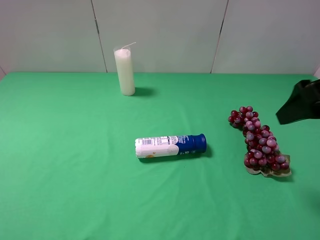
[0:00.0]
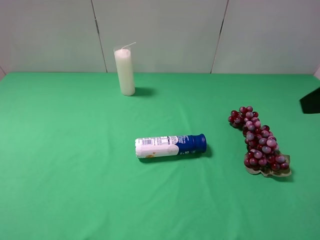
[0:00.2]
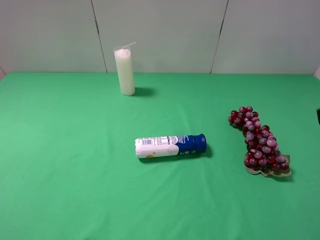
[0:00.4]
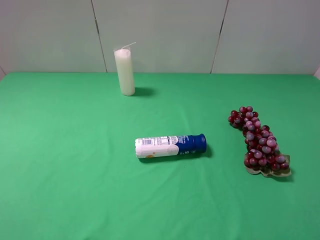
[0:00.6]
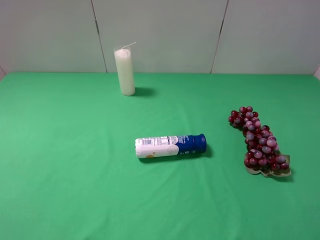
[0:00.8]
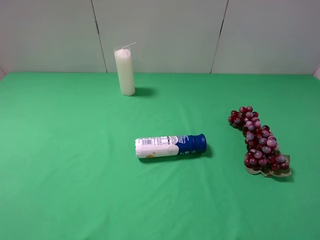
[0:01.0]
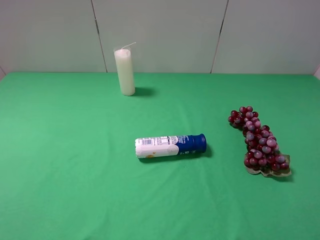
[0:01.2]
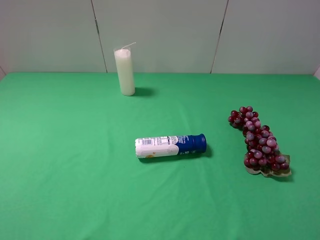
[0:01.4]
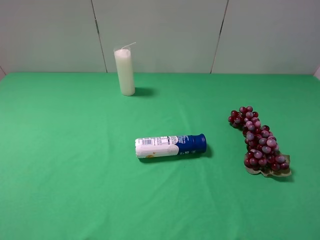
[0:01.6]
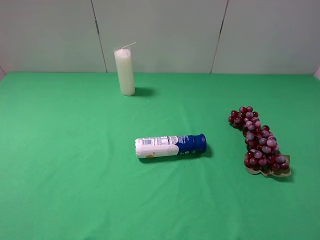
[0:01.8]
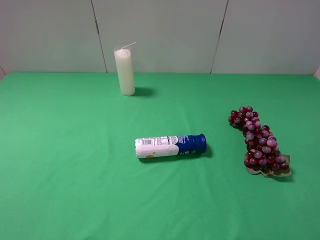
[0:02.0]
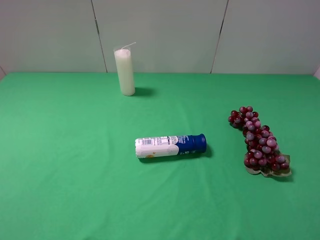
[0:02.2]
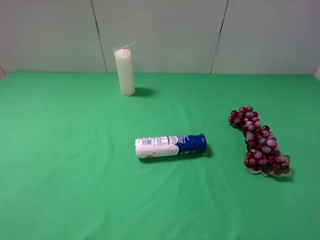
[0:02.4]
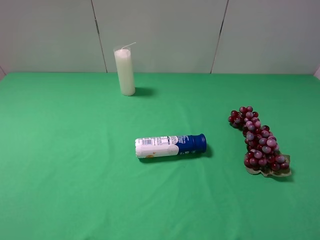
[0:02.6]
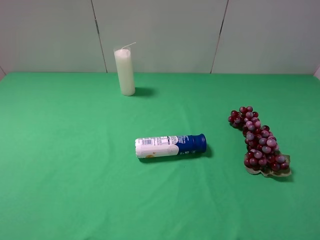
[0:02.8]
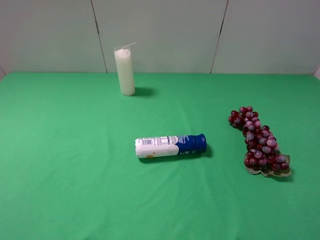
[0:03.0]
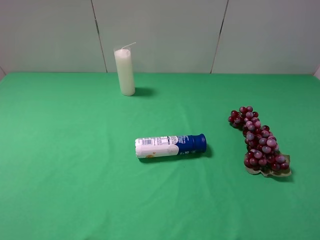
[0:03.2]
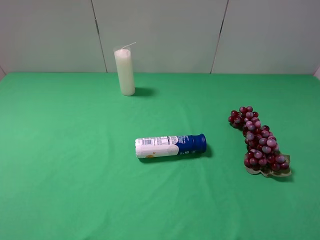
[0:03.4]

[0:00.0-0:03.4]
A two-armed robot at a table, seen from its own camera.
Task of the whole recording: use the left gripper to pick up the item and transfer it from the left gripper to the right gripper.
0:00.0 to 0:01.6: The right gripper is displaced backward by approximately 15 cm.
